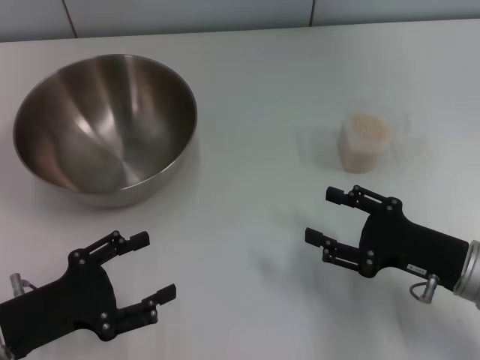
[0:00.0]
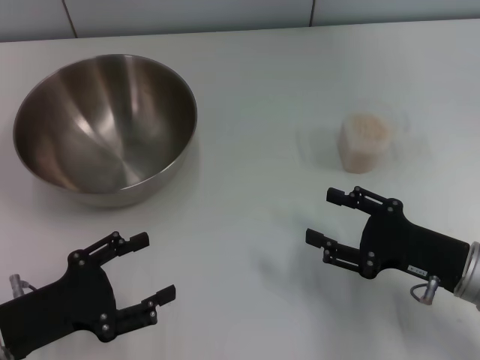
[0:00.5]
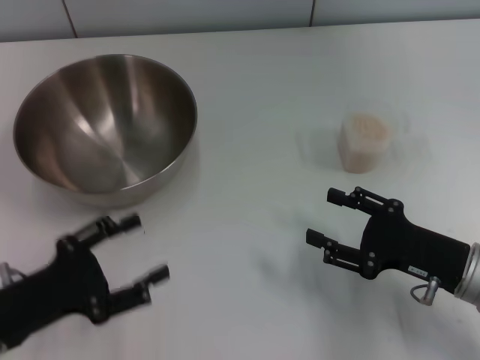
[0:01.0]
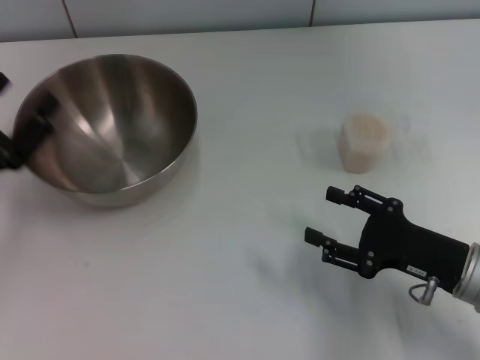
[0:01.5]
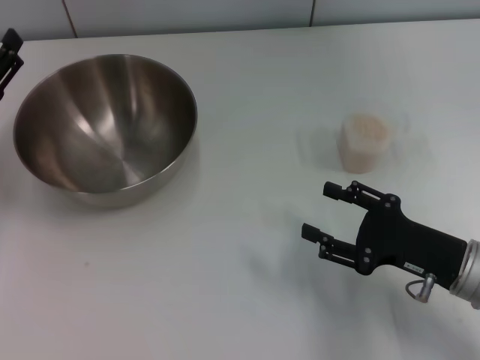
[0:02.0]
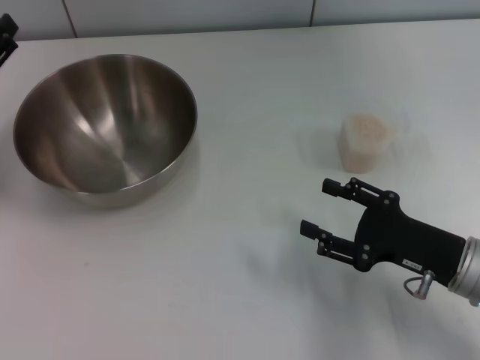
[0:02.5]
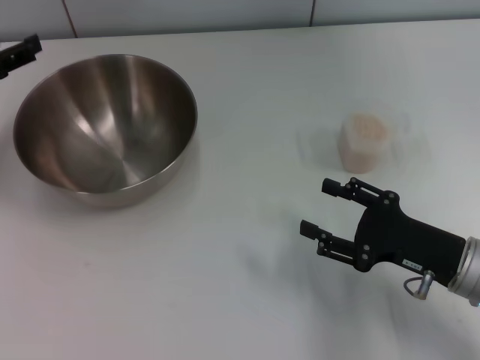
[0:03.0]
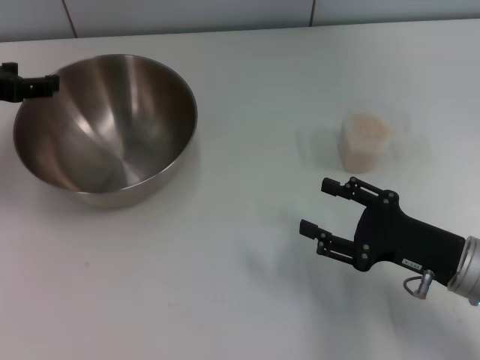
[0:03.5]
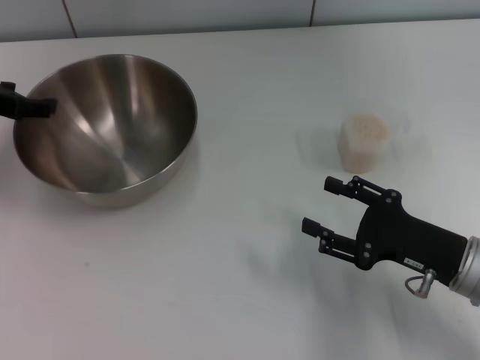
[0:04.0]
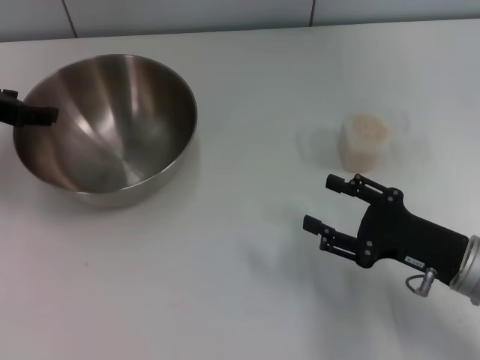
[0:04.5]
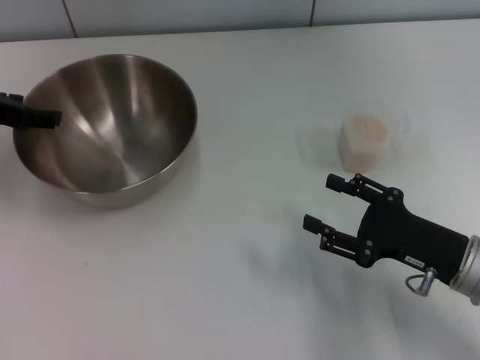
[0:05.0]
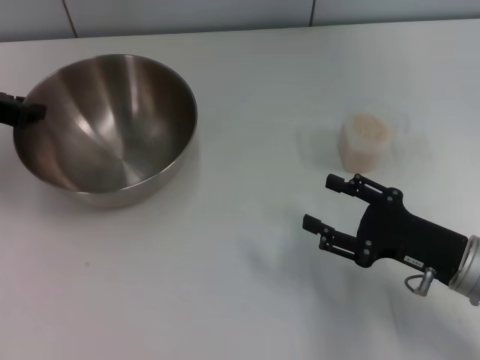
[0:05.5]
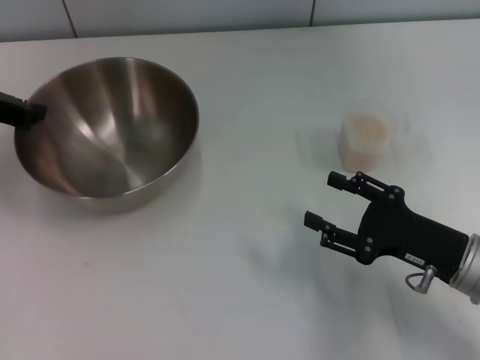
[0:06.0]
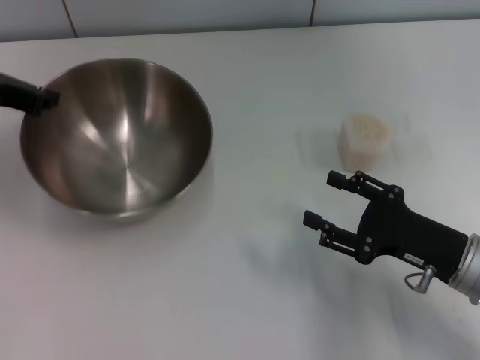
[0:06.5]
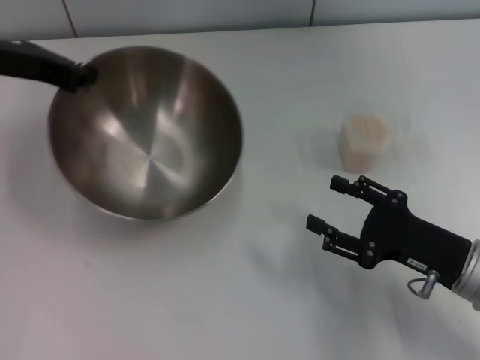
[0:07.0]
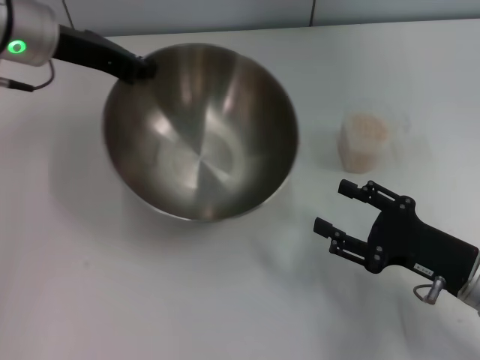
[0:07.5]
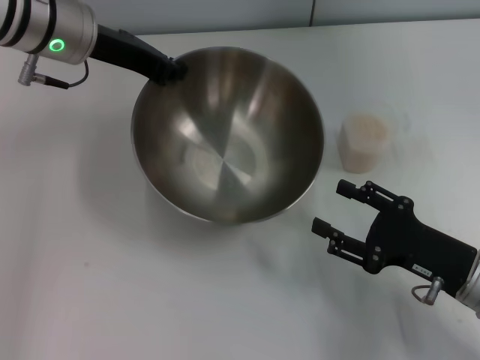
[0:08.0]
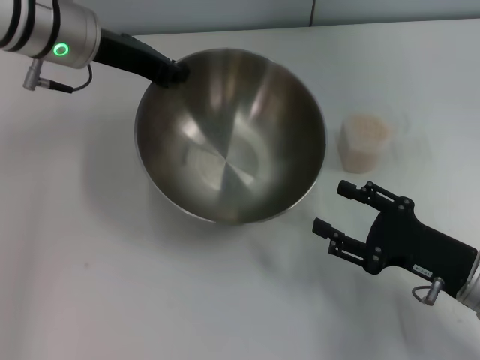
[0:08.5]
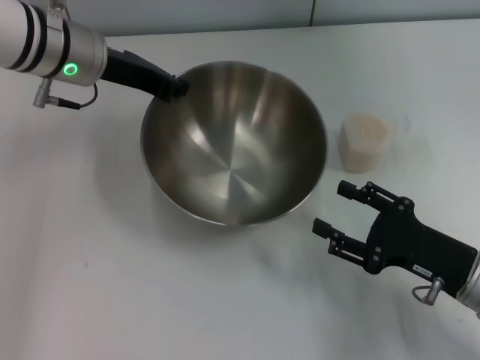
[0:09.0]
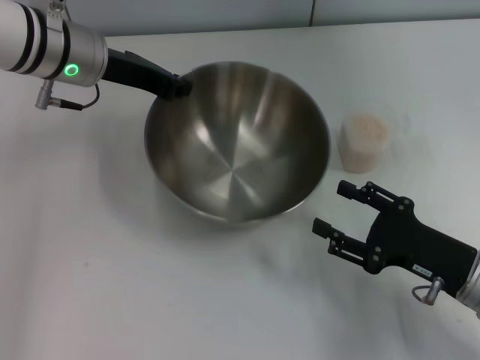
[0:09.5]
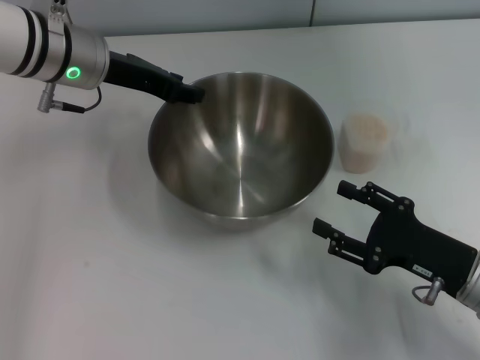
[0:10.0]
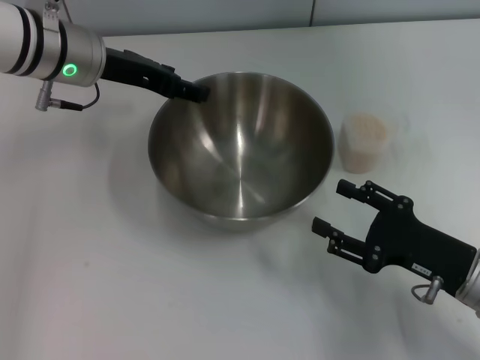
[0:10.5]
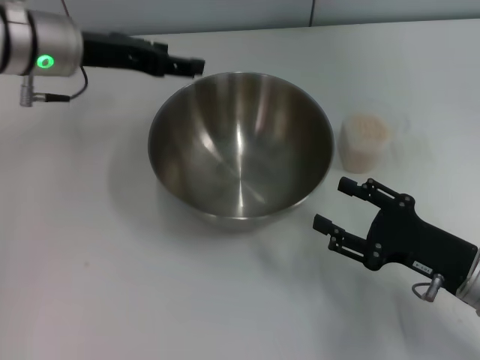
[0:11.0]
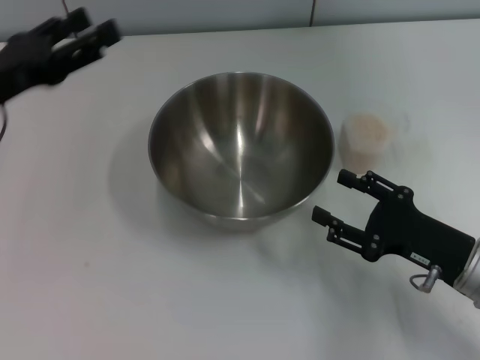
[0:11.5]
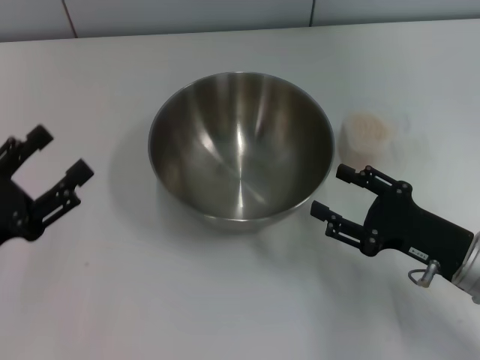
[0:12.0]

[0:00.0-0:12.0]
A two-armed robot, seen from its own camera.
Task of the whole recording: Place the bowl in the middle of the table with one hand and pour the rice from the grain cup into it with the other hand.
Step, 0:00.0 to 0:06.5: Pick up the bowl with the left gripper.
Step, 0:07.0 to 0:11.0: Place the bowl in the center of view with the left gripper.
0:00.0 to 0:02.0: The left gripper goes roughly 10 cm forward.
0:02.0 to 0:04.0: The left gripper heads upward and forward, covering some 10 cm.
0:04.0 to 0:06.0: The left gripper closes its fingers.
0:06.0 to 0:08.0: The left gripper goes approximately 15 cm to the right.
0:08.0 to 0:10.0: There are only small adjustments of the grippers.
0:10.0 to 0:12.0: The left gripper moves backward, to the left and downward, about 30 cm, and opens.

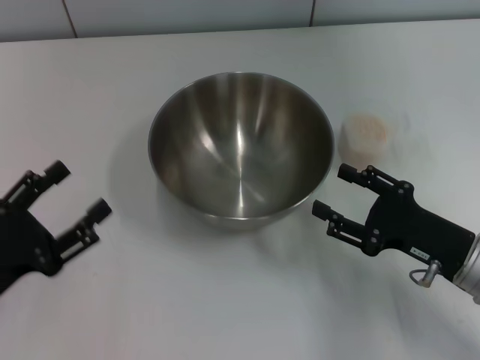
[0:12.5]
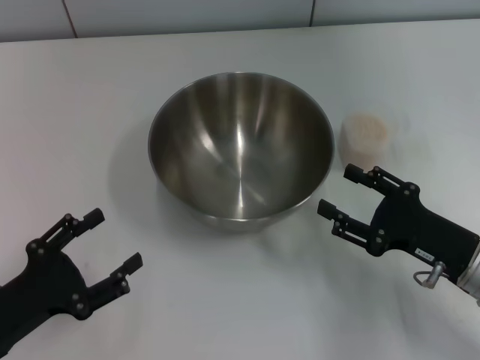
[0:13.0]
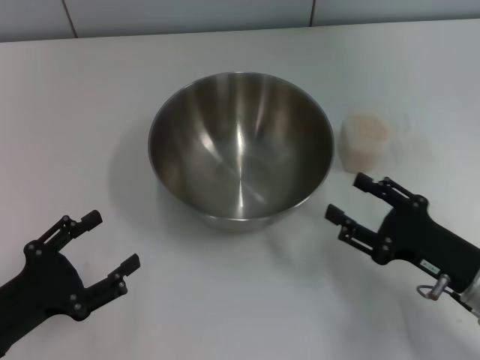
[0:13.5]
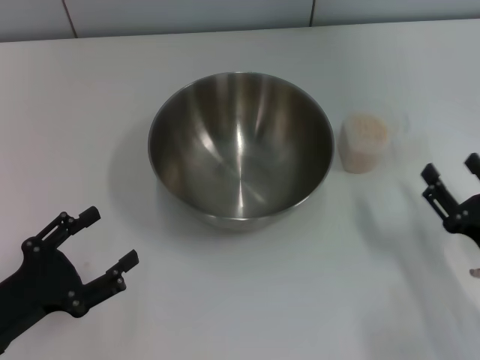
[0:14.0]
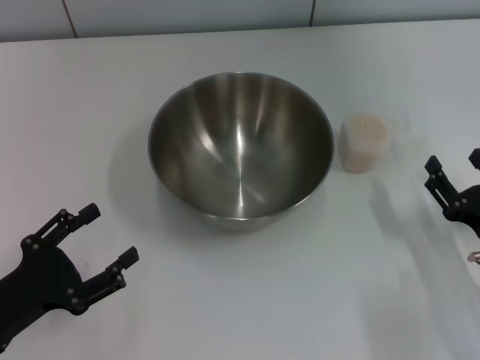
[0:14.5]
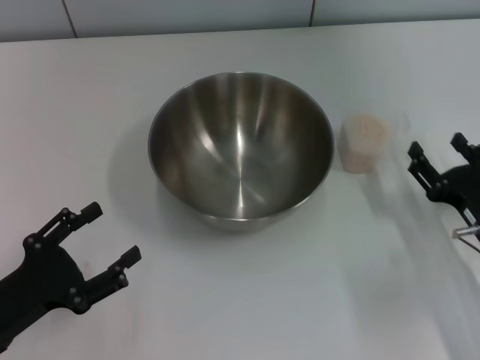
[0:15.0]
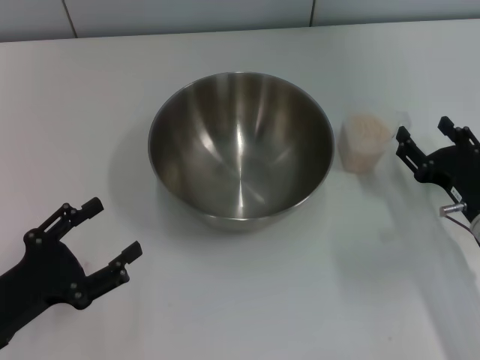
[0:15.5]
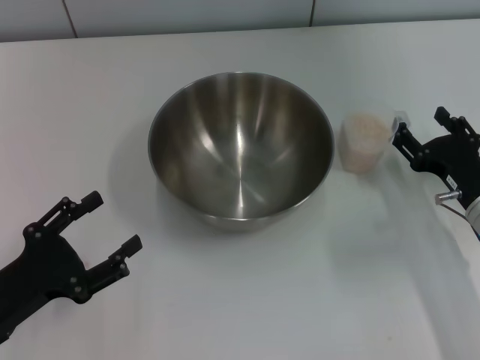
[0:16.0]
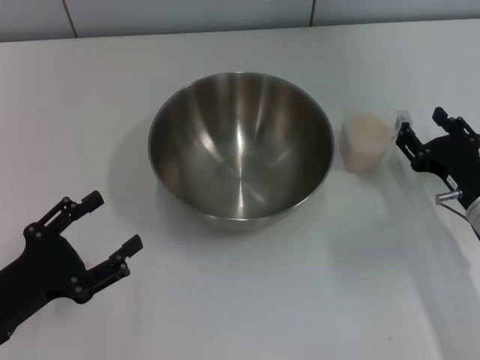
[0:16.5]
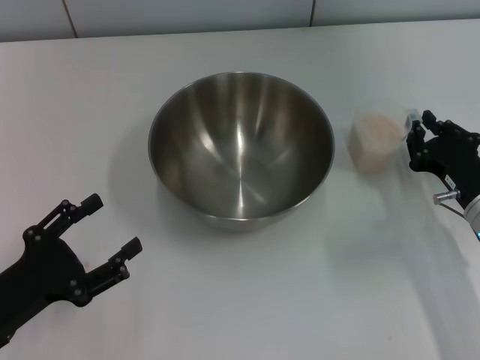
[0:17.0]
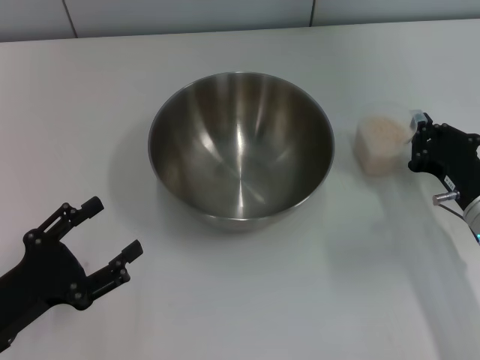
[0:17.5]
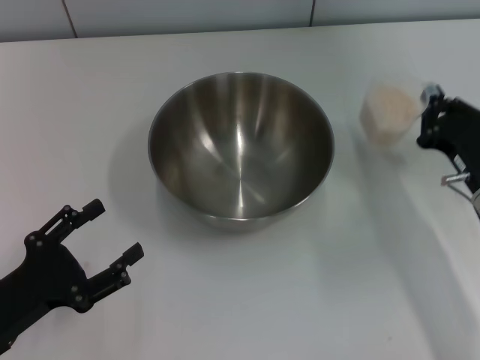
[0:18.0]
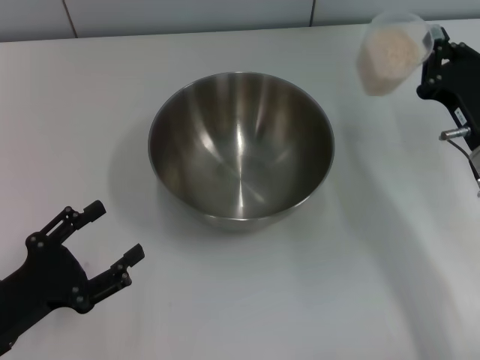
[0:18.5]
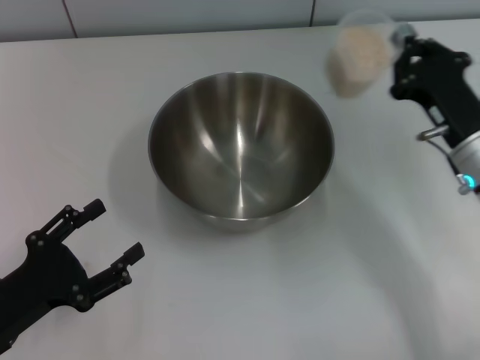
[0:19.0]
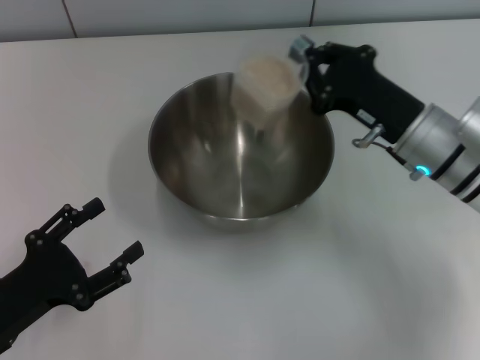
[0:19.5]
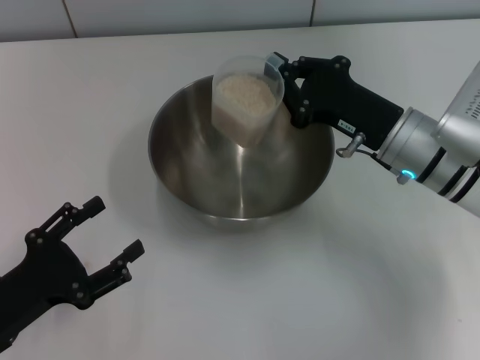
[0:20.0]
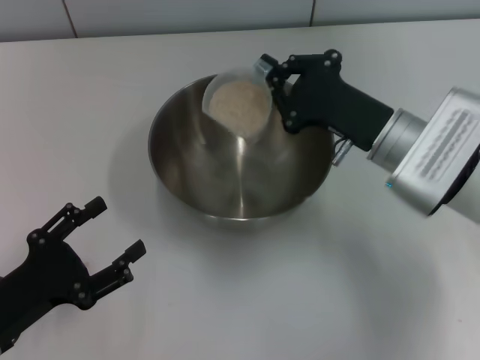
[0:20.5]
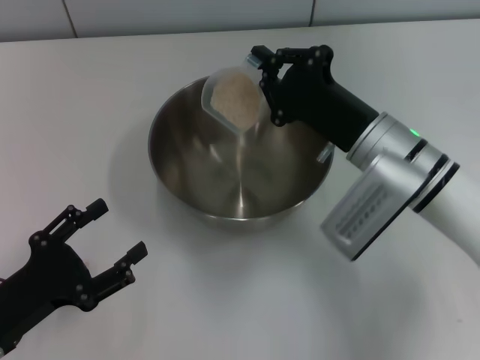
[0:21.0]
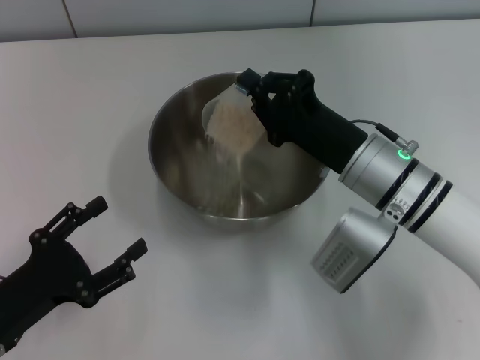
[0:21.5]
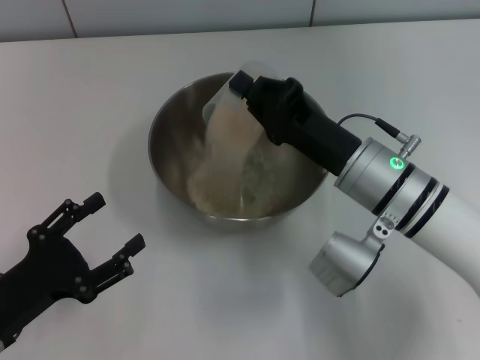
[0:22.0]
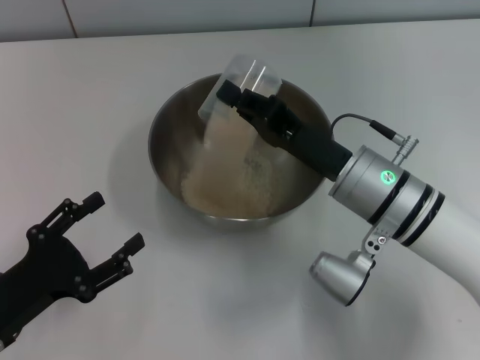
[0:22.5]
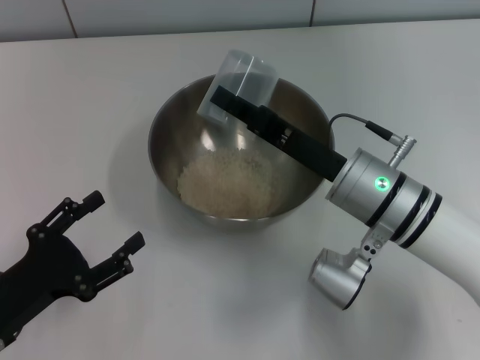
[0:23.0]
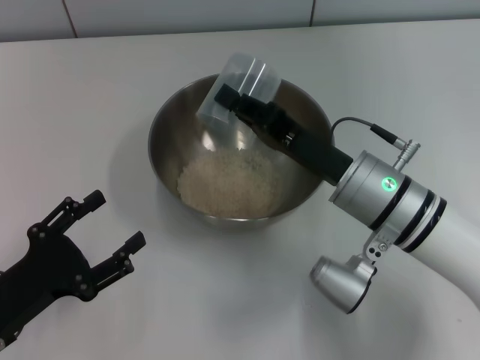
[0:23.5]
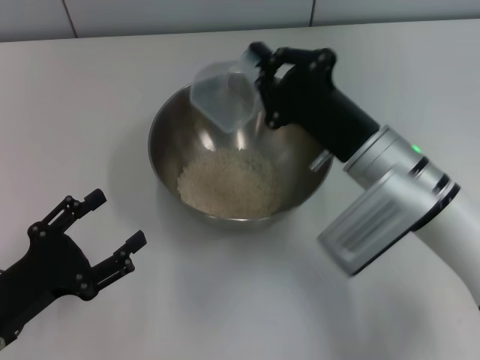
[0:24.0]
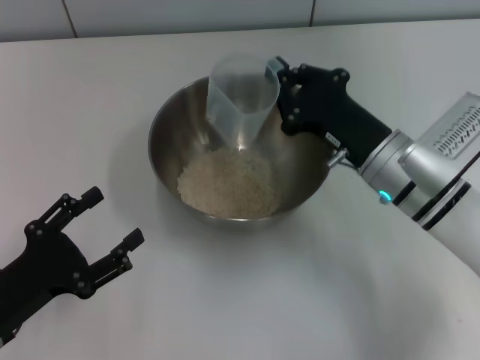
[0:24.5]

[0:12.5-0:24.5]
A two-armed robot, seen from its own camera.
Task of the whole recording: Place the bowl in the middle of the table with one hand and pour the rice from the grain cup into it with the other hand.
Step, 0:12.5 to 0:18.0: Pick up the cup with rice in it with the right gripper.
0:12.5 to 0:14.5: The right gripper moves roughly 5 cm.
0:14.5 to 0:16.5: The right gripper is displaced forward by about 10 cm.
0:16.5 to 0:18.5: The right gripper shifts by approximately 5 cm, and closes its fingers.
0:18.5 to 0:20.5: The right gripper shifts about 10 cm to the left.
0:20.5 to 0:22.5: The right gripper ends up about 5 cm from where it was.

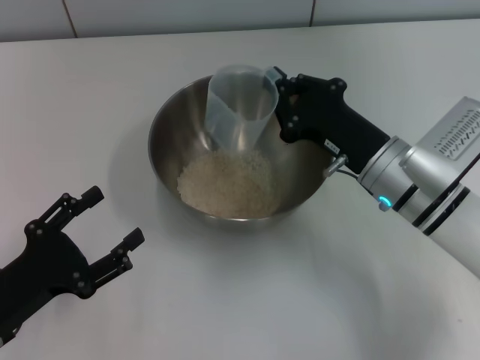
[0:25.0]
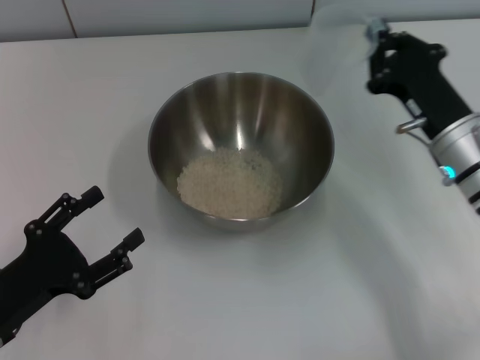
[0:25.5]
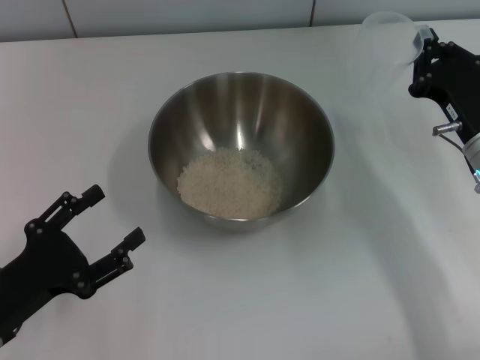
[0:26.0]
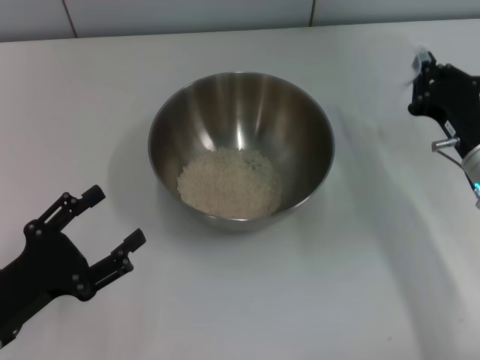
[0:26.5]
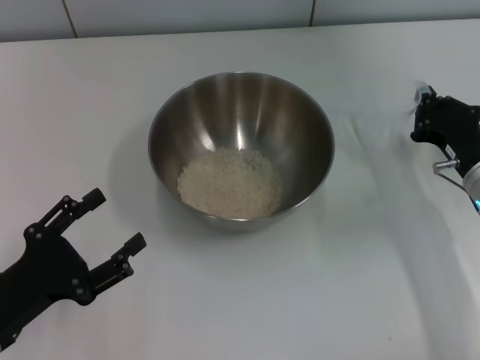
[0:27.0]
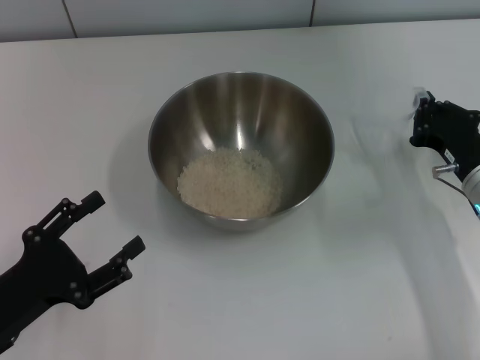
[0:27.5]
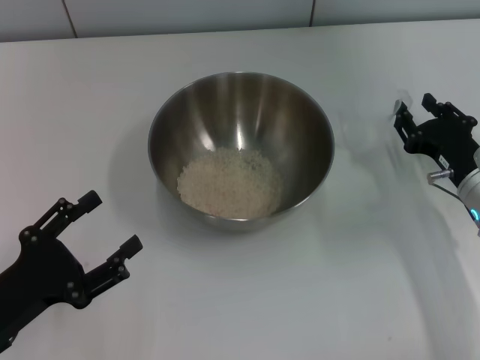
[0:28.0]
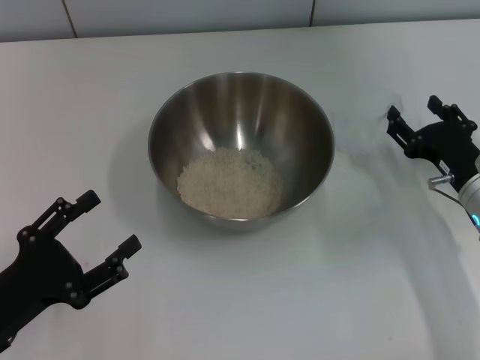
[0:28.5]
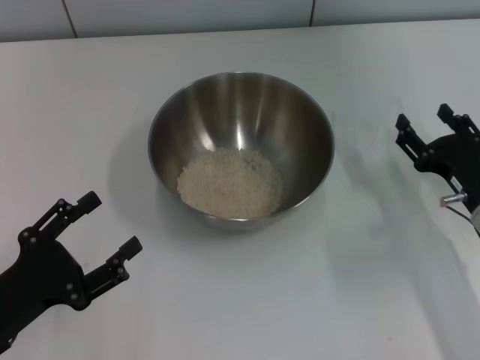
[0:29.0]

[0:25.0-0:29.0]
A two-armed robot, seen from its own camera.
Task of the whole recording: Place the bowl in the middle of the table with one hand and pour the rice from the grain cup into it with the other hand.
0:25.0 to 0:27.0: The right gripper is displaced to the right by approximately 10 cm.
0:27.0 to 0:29.0: The right gripper opens up.
